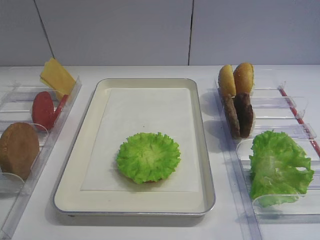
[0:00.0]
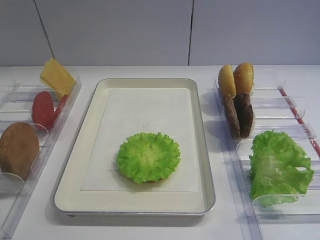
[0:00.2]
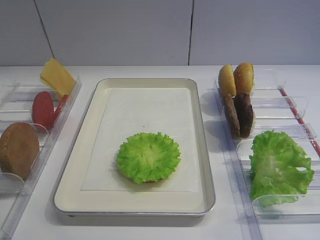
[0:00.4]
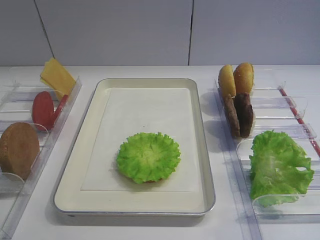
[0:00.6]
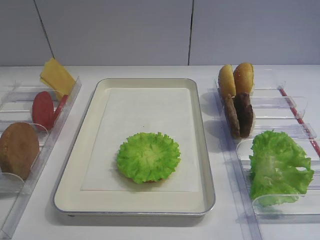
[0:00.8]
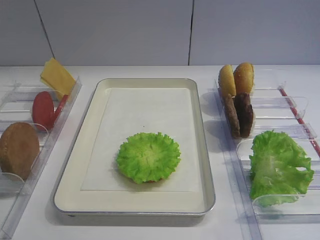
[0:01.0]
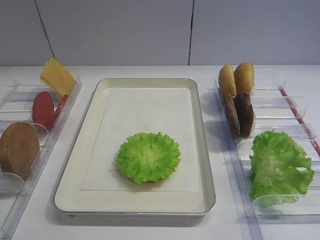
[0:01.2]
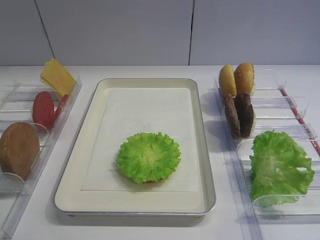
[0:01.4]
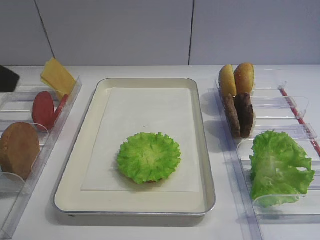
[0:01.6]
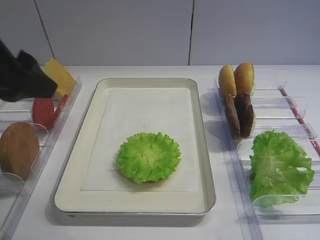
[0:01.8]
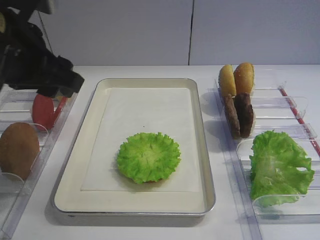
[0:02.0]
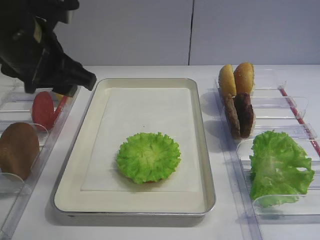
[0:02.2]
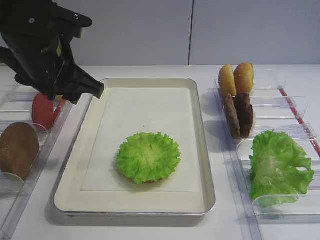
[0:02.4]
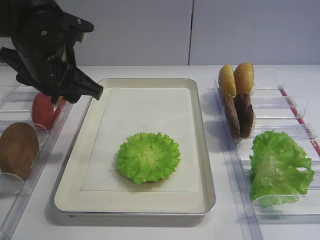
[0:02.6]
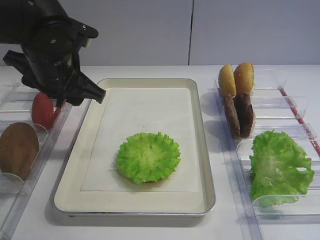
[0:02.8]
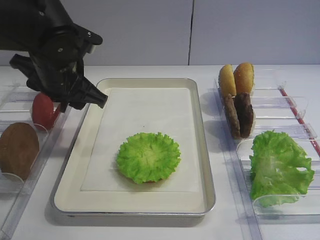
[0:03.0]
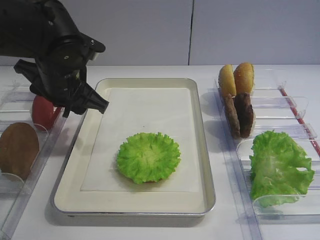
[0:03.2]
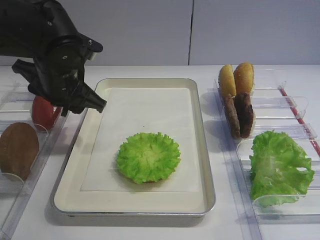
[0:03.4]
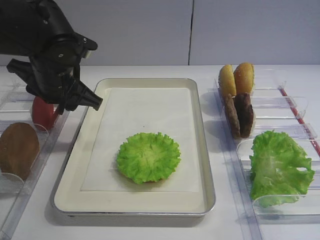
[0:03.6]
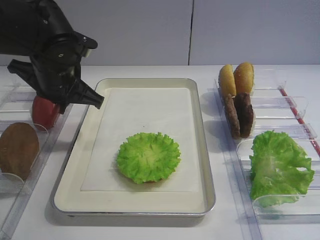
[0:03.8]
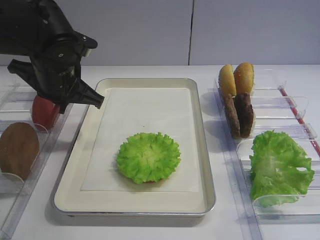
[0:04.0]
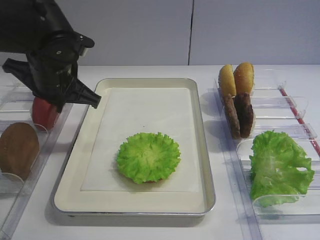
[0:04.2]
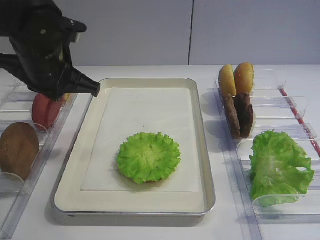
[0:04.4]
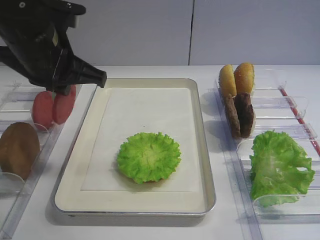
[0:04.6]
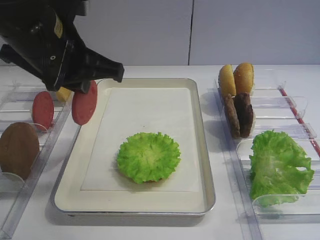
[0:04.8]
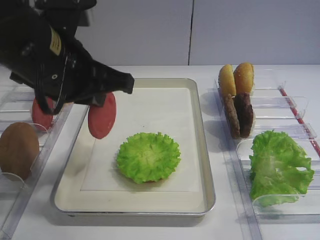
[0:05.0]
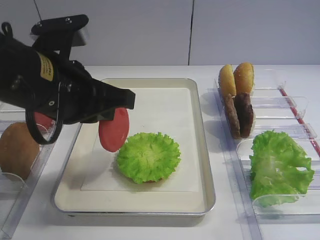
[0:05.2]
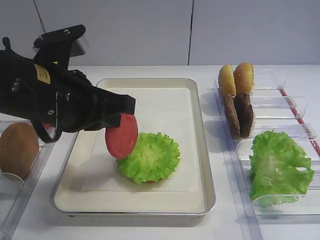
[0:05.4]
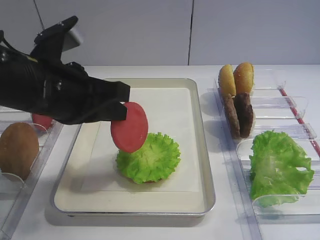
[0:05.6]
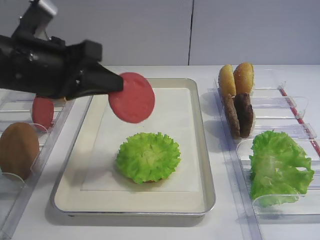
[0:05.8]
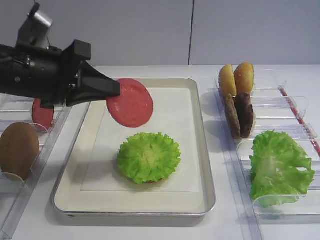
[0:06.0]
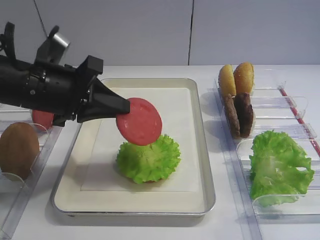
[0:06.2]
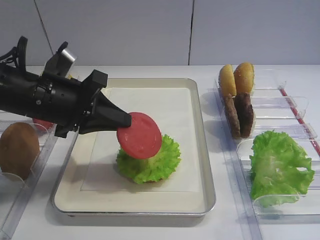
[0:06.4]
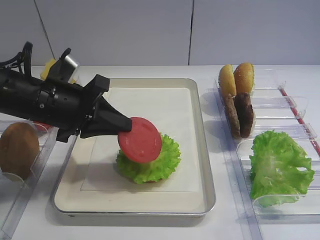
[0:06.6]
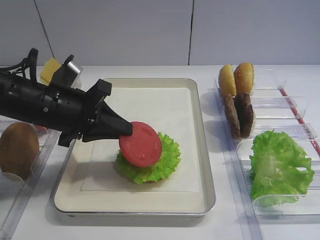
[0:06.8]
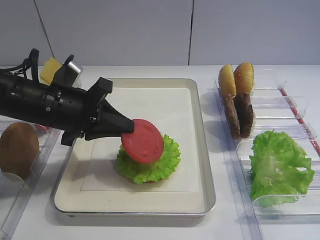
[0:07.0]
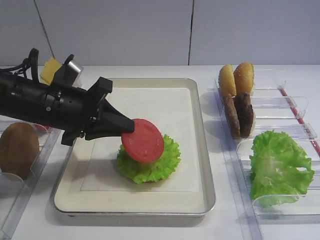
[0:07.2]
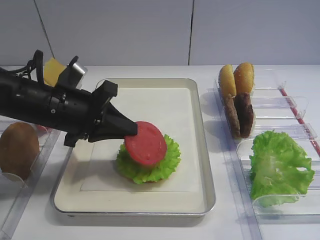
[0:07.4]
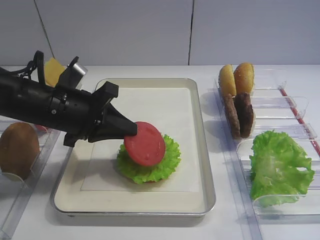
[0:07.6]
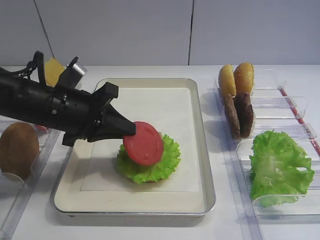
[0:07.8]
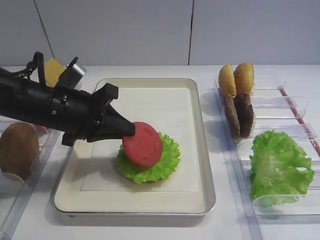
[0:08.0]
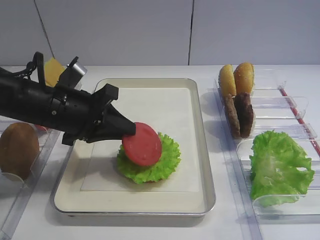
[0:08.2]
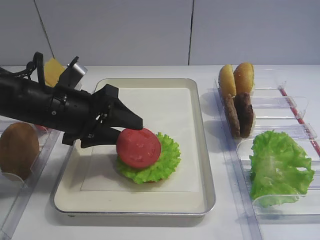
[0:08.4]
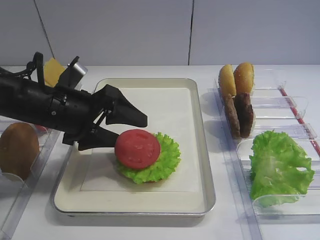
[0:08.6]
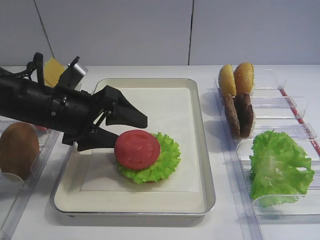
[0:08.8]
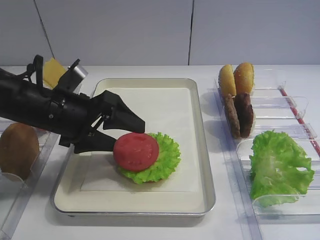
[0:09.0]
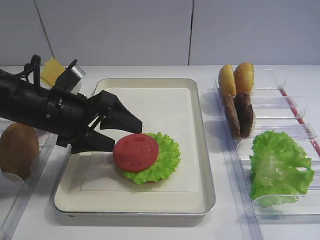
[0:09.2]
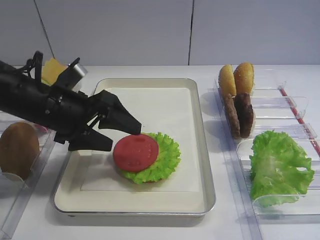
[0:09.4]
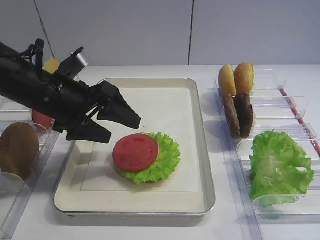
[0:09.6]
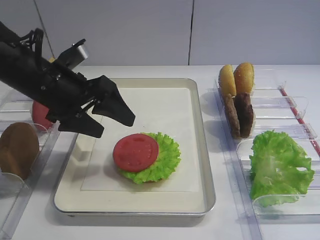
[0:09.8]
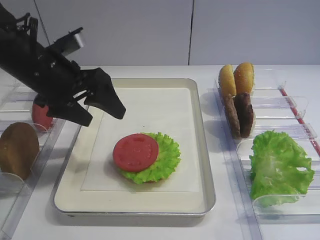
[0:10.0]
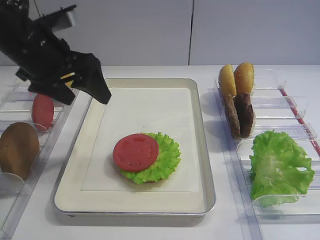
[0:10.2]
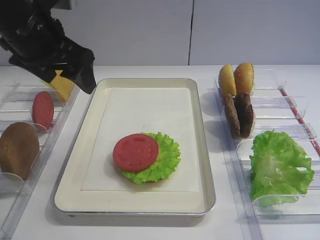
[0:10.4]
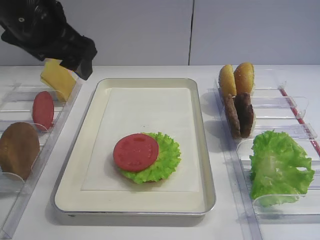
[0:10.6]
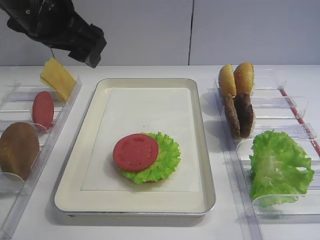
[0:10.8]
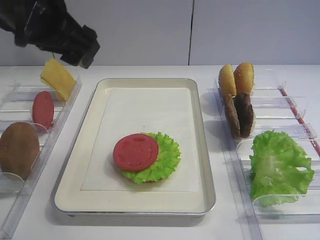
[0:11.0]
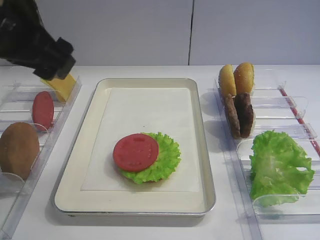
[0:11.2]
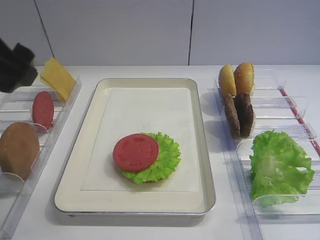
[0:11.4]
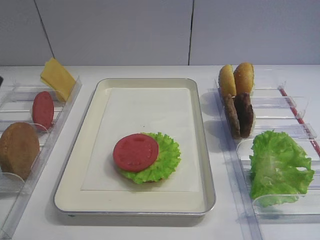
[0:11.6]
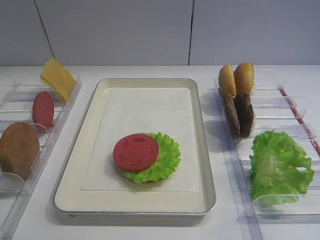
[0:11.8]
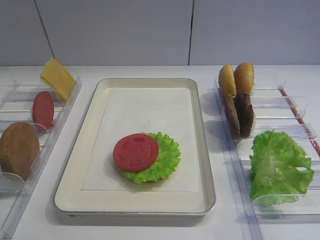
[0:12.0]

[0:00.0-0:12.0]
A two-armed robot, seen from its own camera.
Step, 0:00.0 to 0:04.4: Pick up the tomato slice with the left gripper.
Step, 0:04.6 to 0:09.8: Place the tomato slice on the lettuce leaf with the left gripper.
0:01.6 to 0:03.0: The left gripper shifts approximately 20 cm forward, downward and to the right.
0:03.0 to 0:04.4: The left gripper closes up.
0:04.4 to 0:06.0: The left gripper moves backward, some 5 cm.
0:06.0 to 0:07.6: The left gripper heads downward, covering roughly 5 cm.
0:07.6 to 0:09.0: The left gripper opens.
0:09.0 to 0:10.4: The left gripper goes approximately 10 cm upward.
0:10.4 to 0:12.0: The left gripper travels backward and to the left by some 25 cm.

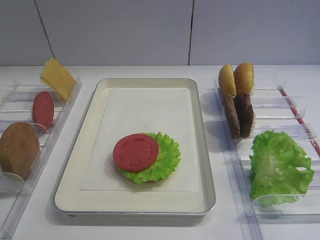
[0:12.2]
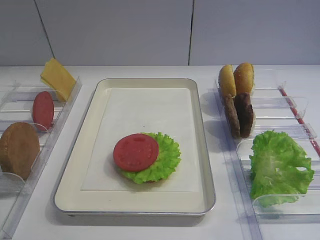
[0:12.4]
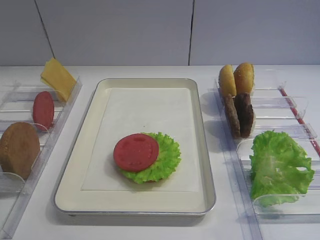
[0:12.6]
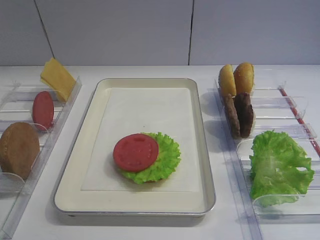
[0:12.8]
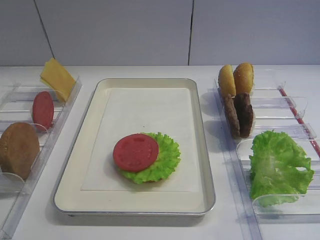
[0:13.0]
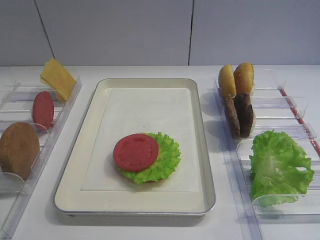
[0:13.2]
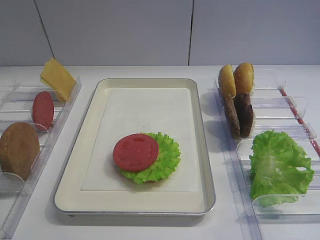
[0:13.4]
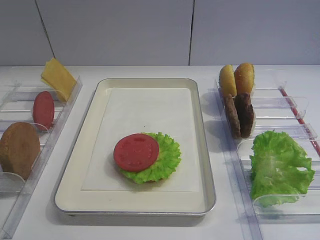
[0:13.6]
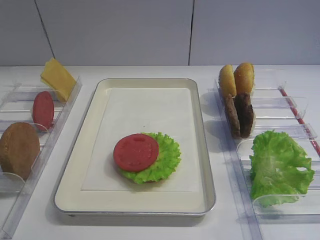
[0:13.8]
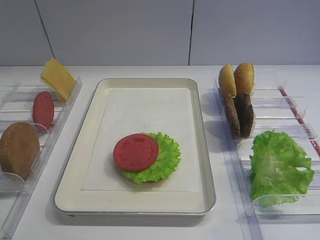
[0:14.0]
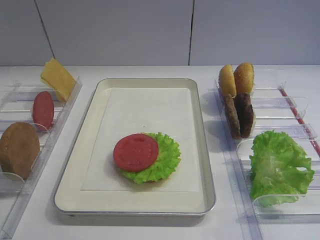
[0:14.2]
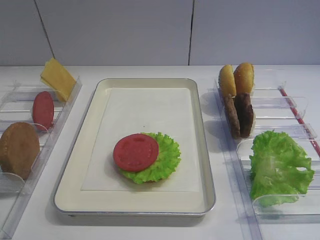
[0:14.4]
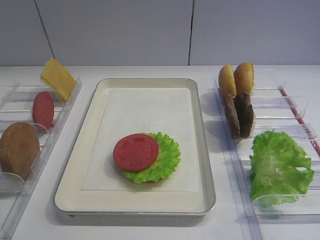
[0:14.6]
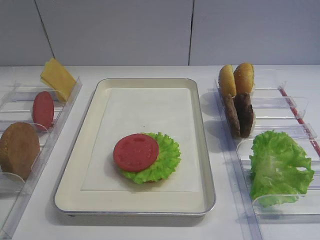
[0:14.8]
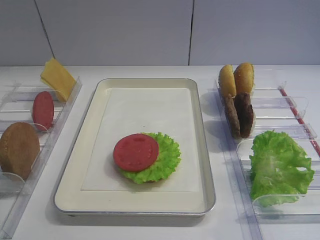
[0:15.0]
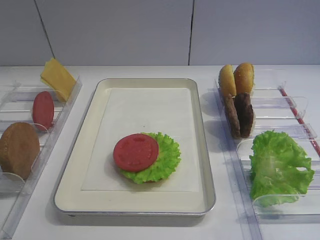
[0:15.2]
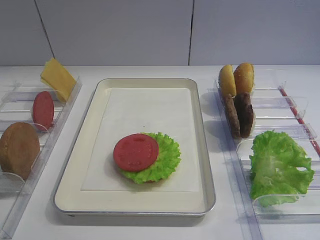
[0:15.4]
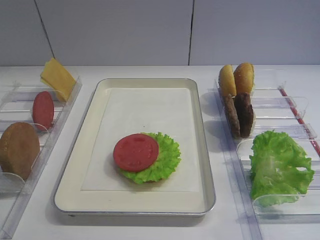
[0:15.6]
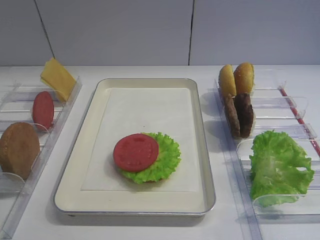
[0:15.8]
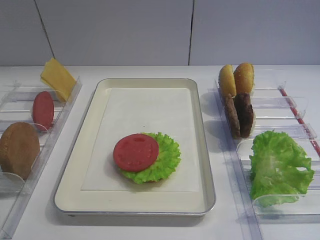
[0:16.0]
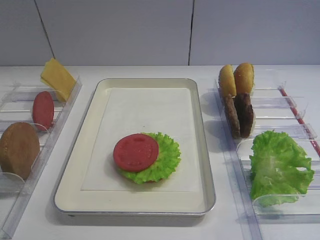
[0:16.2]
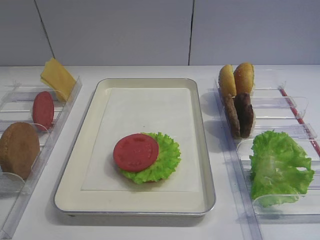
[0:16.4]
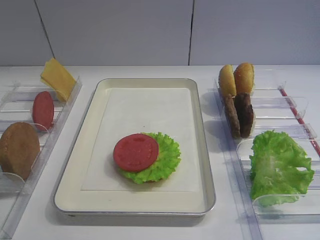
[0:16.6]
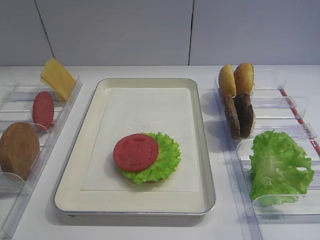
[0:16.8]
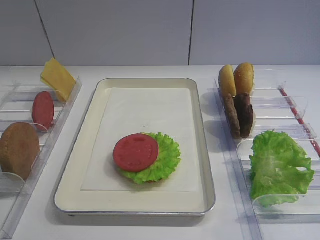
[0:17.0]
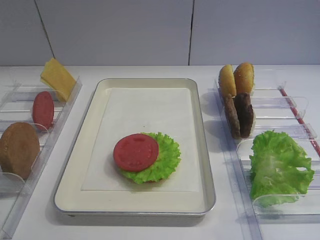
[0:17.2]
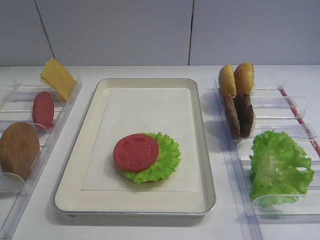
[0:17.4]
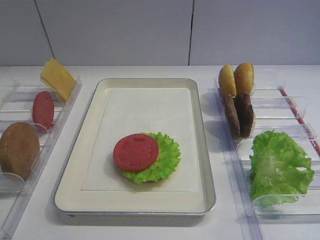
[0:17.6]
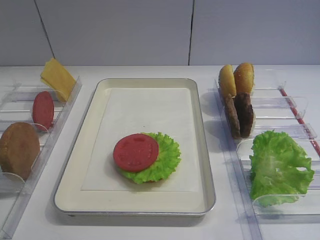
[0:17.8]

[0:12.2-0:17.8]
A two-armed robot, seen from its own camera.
0:15.0 to 0:17.8: Both grippers stay put.

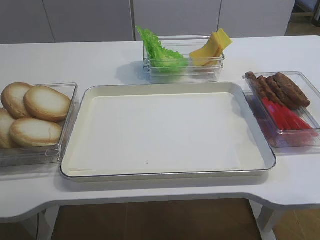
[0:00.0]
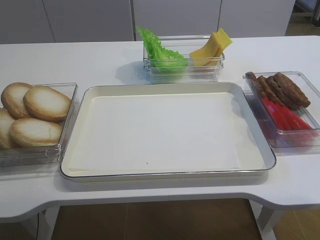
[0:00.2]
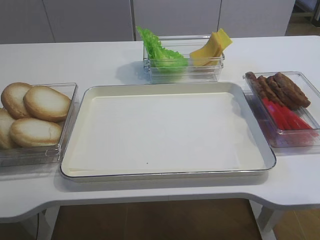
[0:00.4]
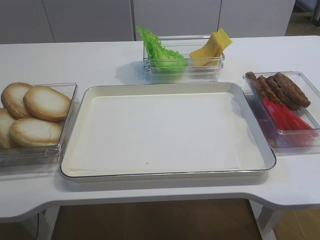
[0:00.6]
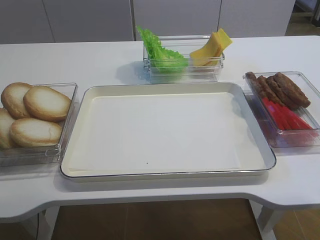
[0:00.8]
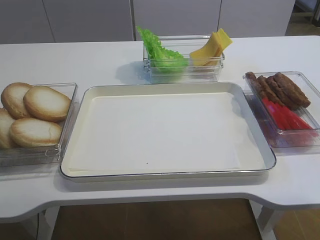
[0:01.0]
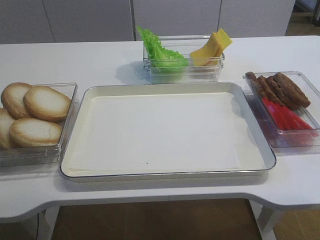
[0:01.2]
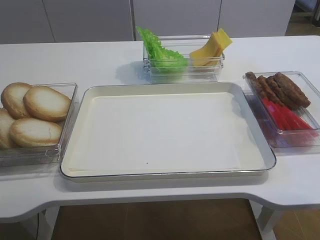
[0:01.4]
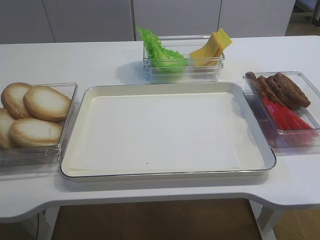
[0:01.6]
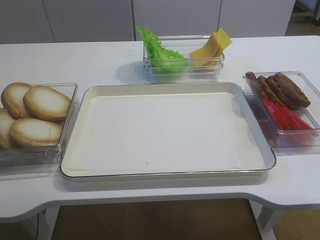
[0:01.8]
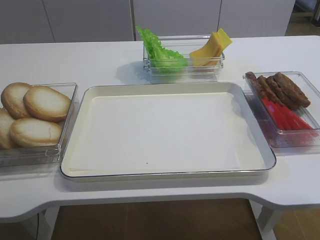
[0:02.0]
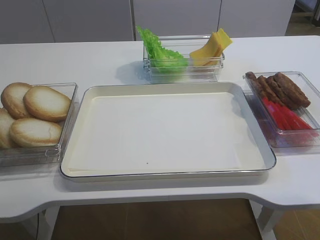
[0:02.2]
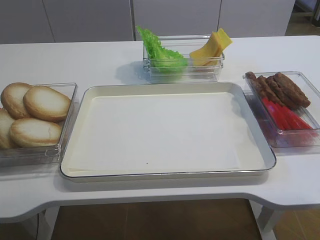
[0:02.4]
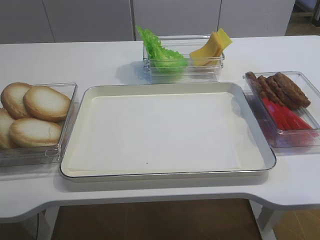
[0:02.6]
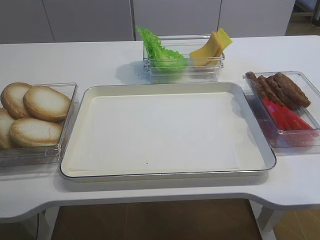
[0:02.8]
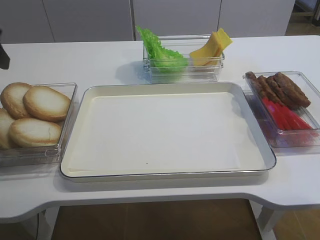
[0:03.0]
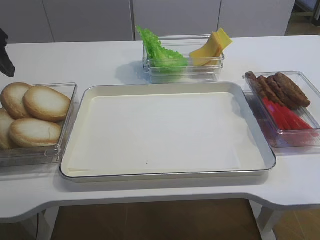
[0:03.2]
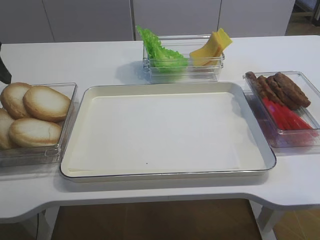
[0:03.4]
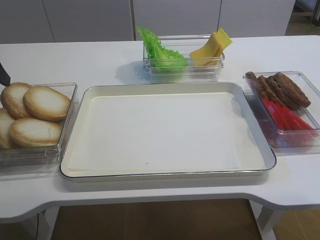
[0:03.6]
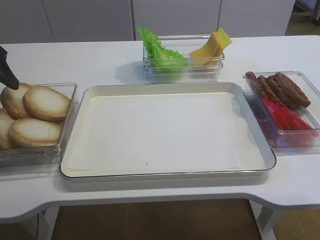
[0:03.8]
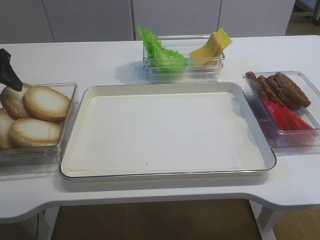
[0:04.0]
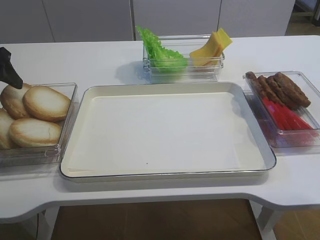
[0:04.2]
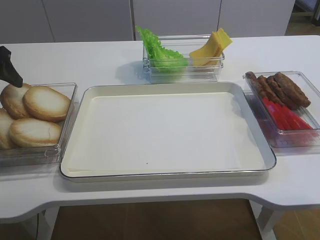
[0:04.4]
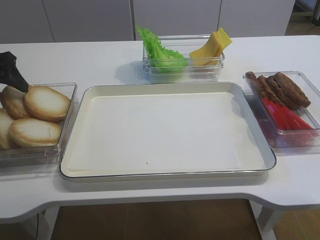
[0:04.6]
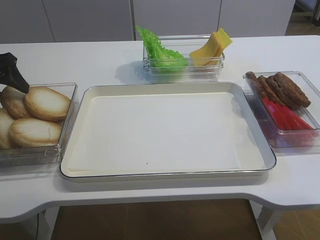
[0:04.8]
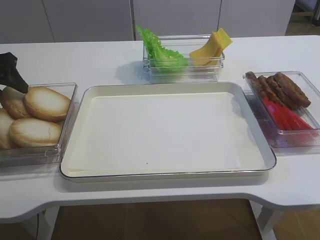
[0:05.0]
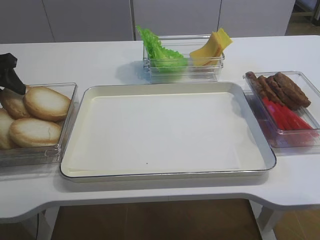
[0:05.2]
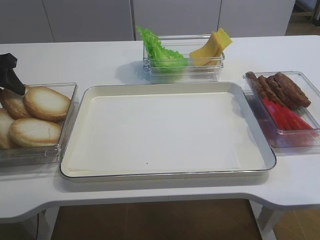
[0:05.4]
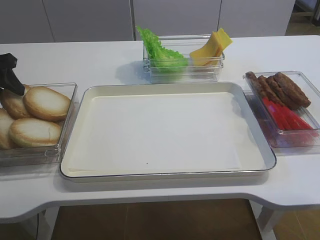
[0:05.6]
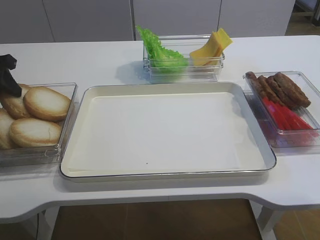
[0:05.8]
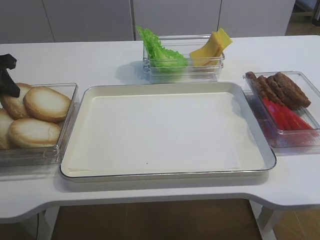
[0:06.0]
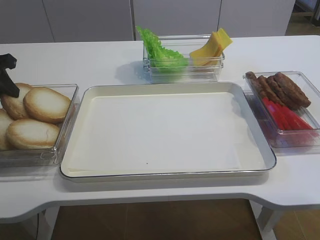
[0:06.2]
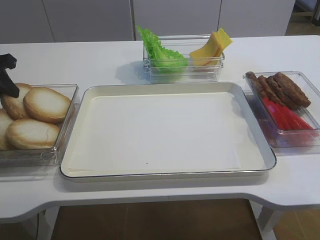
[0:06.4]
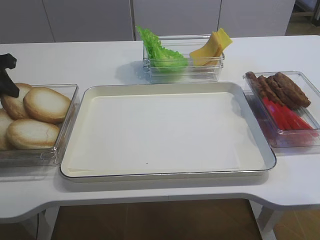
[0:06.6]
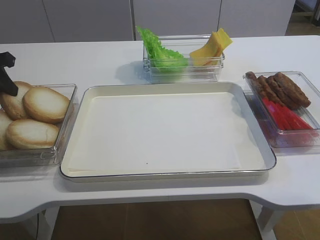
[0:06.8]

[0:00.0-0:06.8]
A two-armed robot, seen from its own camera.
0:02.8 to 0:04.0: The left gripper shifts about 15 cm forward and downward.
0:05.4 to 0:06.8: The left gripper closes.
